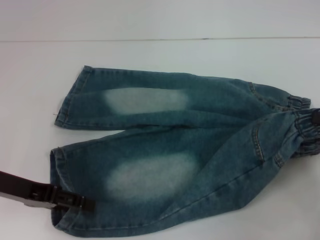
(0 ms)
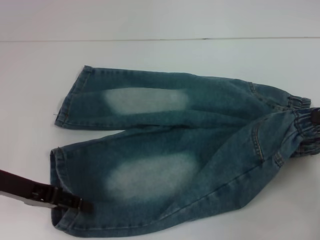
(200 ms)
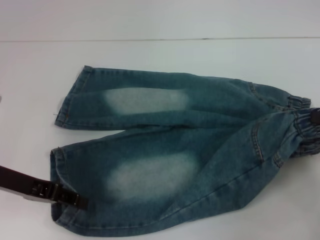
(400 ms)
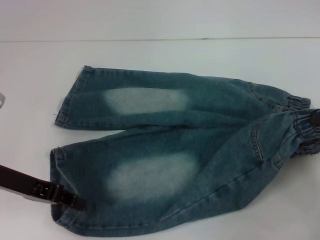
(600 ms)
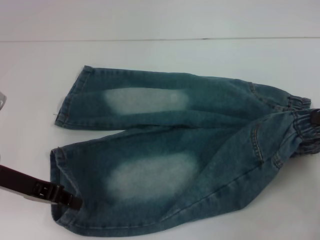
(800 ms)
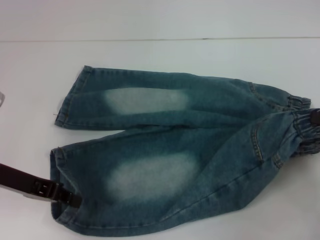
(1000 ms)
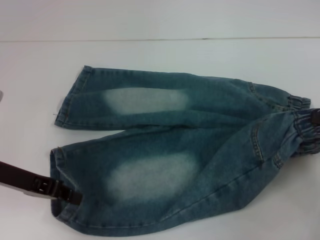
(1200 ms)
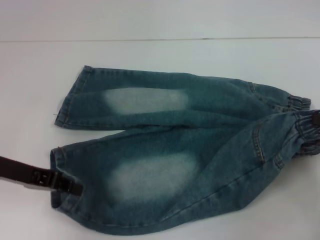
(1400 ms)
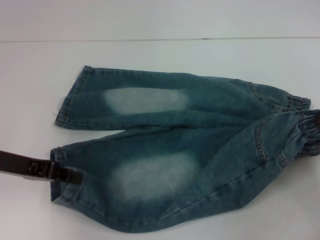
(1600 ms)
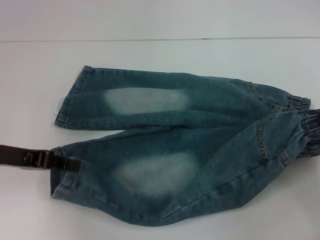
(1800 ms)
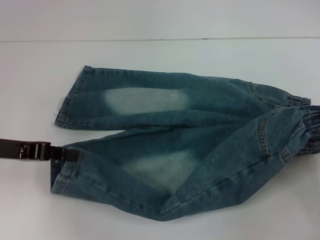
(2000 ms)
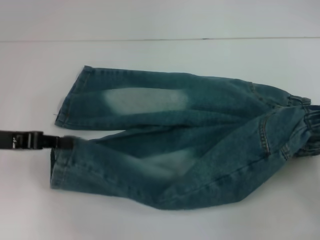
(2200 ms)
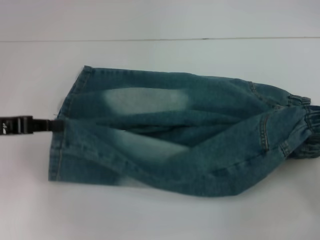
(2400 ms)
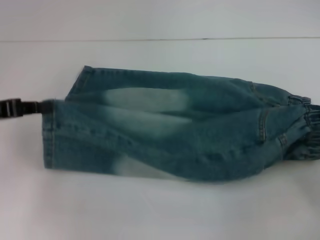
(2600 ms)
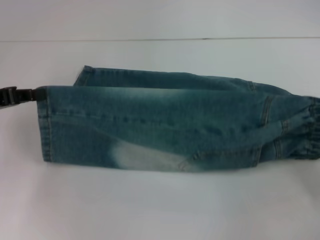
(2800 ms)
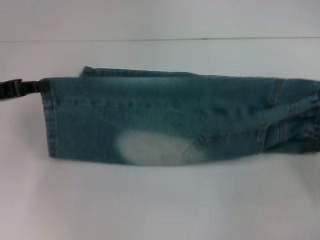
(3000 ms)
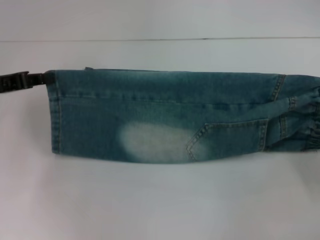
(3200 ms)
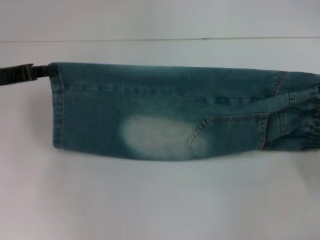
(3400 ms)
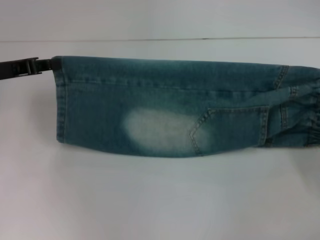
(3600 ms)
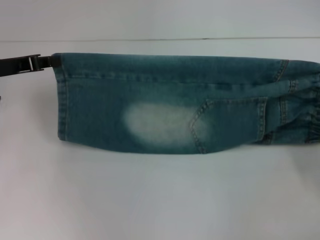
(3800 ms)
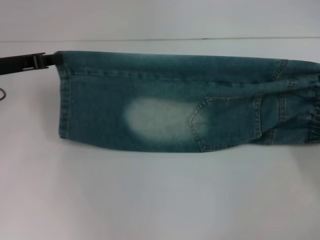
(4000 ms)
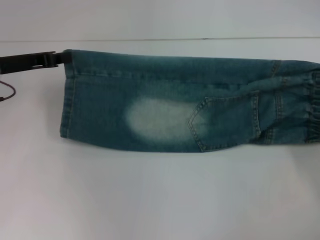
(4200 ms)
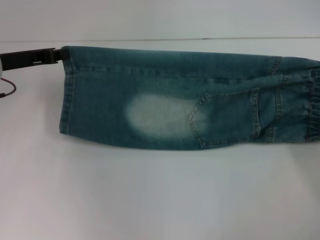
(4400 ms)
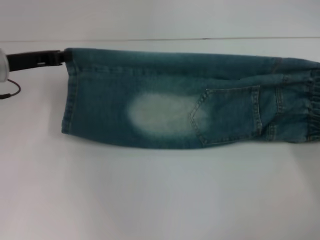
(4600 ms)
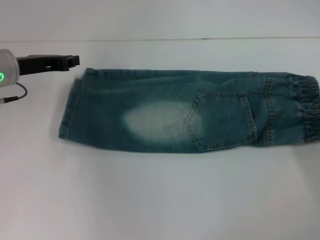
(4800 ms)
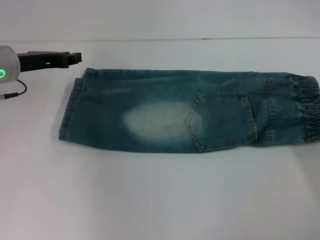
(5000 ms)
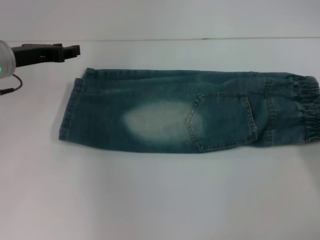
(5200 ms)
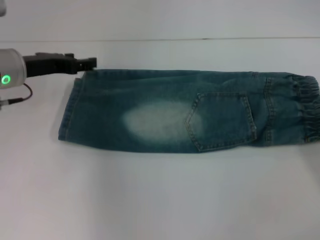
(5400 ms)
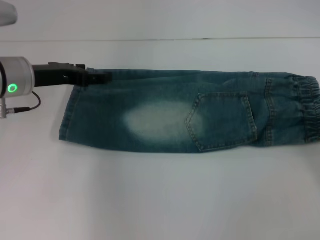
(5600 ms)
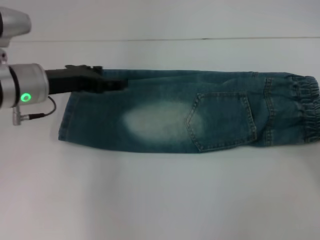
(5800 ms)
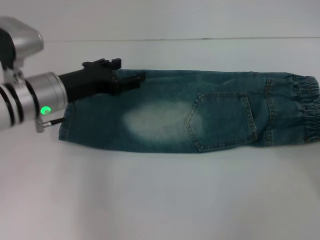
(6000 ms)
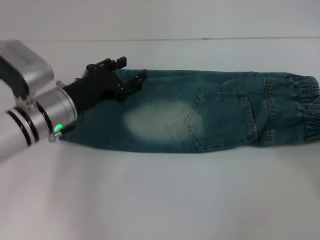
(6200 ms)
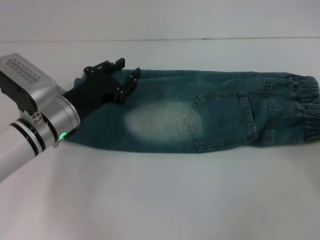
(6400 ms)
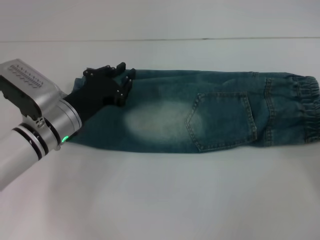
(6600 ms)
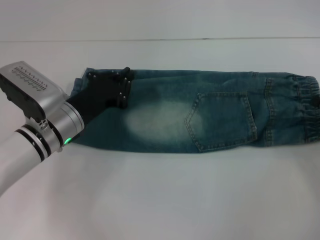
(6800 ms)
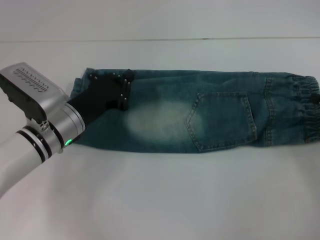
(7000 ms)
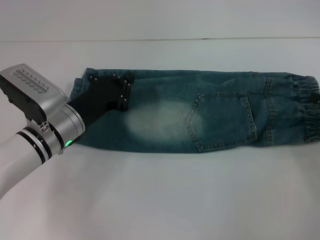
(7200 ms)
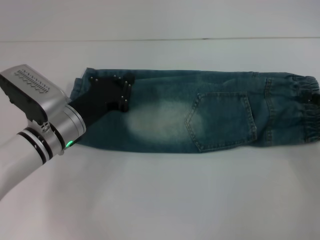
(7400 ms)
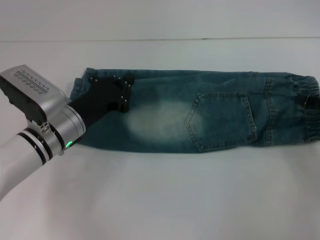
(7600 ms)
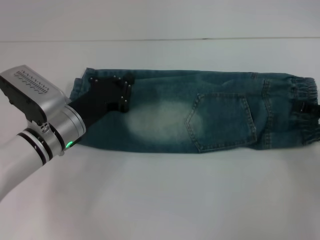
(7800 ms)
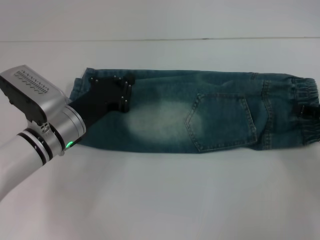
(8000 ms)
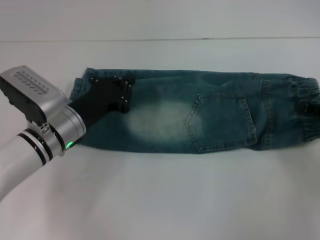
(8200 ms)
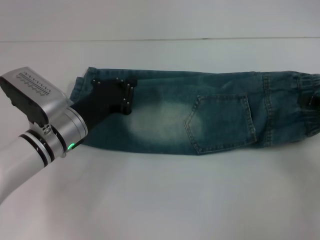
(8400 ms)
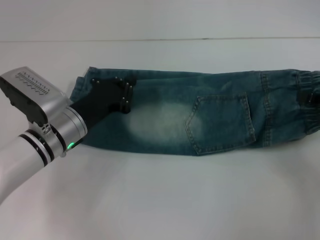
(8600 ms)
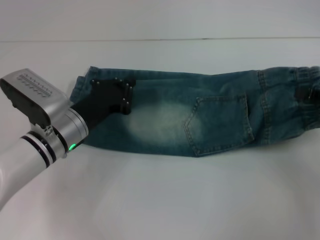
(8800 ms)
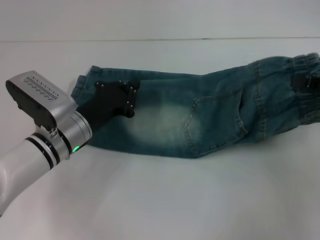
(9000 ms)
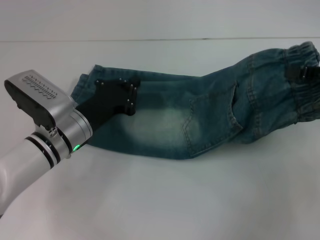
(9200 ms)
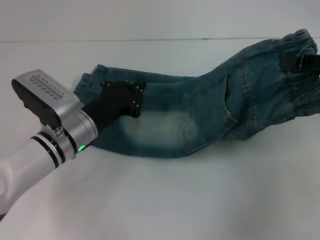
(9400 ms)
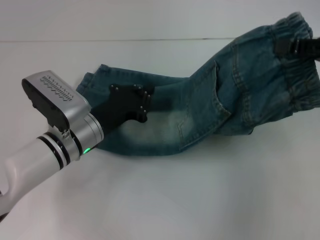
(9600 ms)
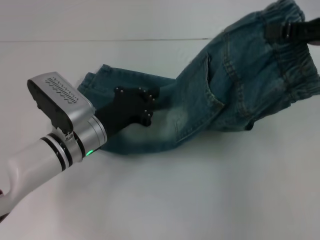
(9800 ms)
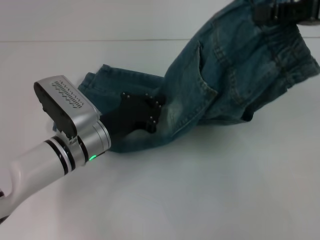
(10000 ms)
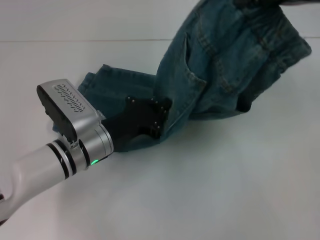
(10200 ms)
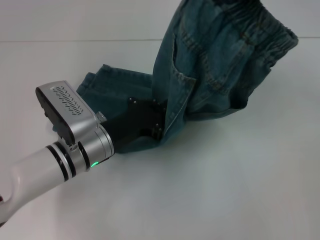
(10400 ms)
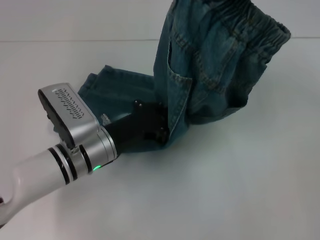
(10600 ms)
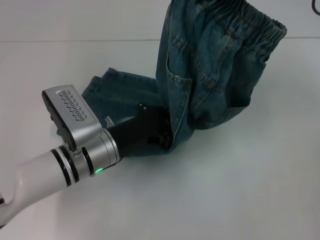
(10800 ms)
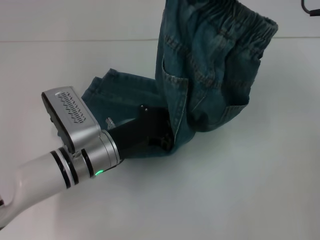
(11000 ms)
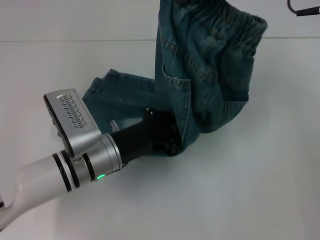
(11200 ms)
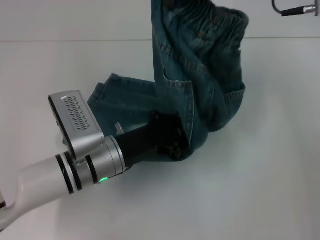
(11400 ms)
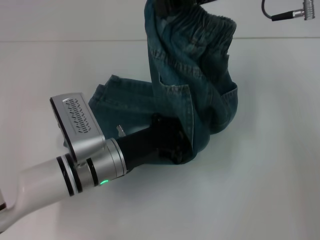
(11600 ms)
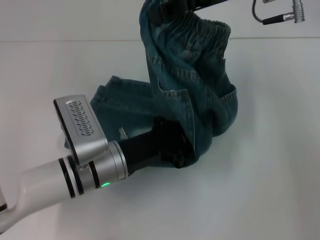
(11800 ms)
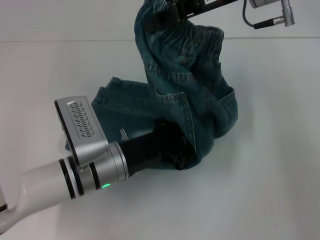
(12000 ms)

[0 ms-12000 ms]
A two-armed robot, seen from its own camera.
Step, 0 ms to 5200 ms: Fold upward with your right hand.
Step, 5400 ms to 7800 ms: Grab the waistband with your right hand.
0 ms to 1600 ms: The left gripper closes.
1600 ms to 3000 ms: The left gripper shifts by about 5 cm.
3000 ms to 4400 ms: The right gripper shifts by roughly 5 cm. The left gripper travels forward by roughly 5 cm.
4400 ms to 6000 ms: The left gripper heads to the right, covering some 10 cm, and opens its fingers. The right gripper shifts about 5 cm backward, and opens up.
6000 ms to 7600 ms: The right gripper heads forward, covering approximately 5 cm, while the left gripper shifts some 5 cm downward, and closes.
7600 ms to 9000 ms: The right gripper moves upward, about 5 cm, and closes up.
9000 ms to 10400 ms: The right gripper is displaced upward, to the left and forward by about 20 cm.
10400 ms to 12000 ms: The right gripper shifts some 10 cm to the left.

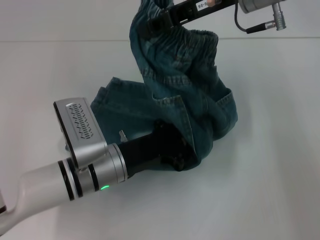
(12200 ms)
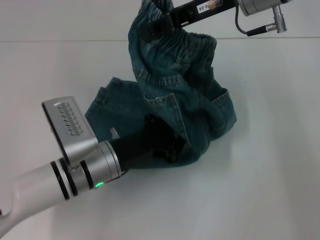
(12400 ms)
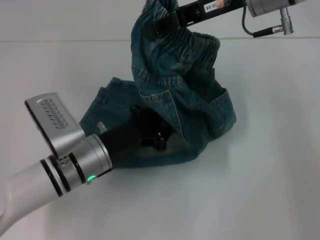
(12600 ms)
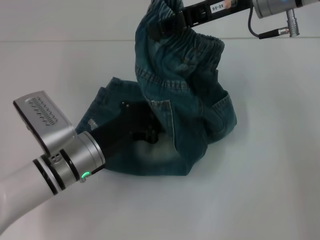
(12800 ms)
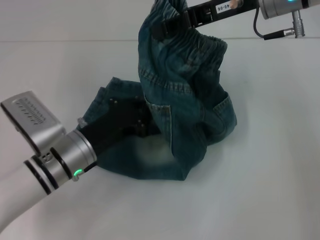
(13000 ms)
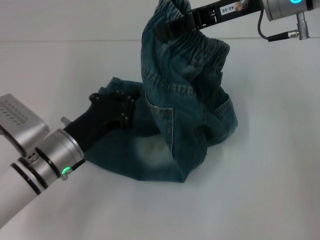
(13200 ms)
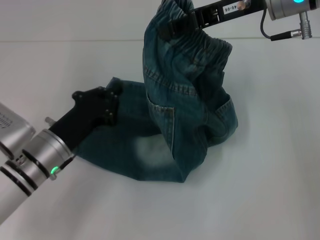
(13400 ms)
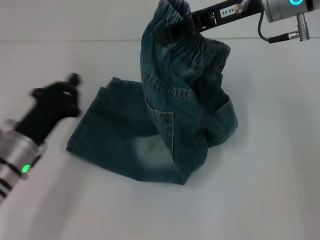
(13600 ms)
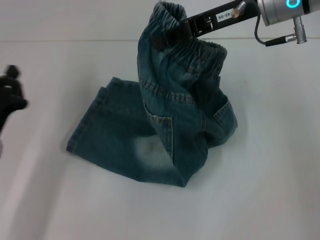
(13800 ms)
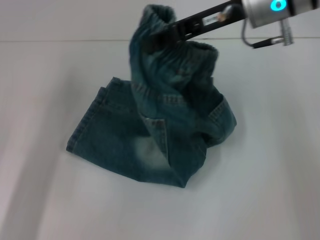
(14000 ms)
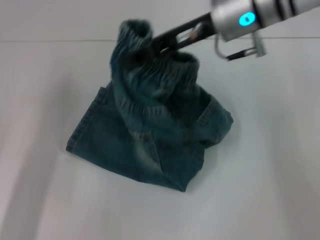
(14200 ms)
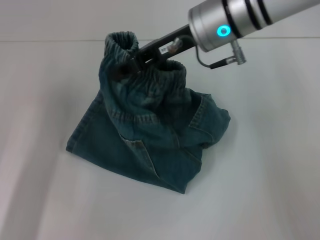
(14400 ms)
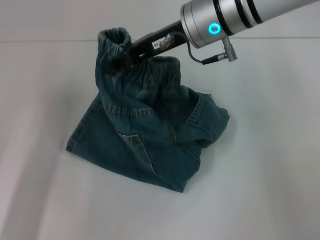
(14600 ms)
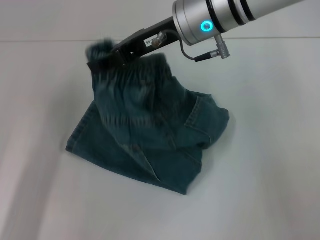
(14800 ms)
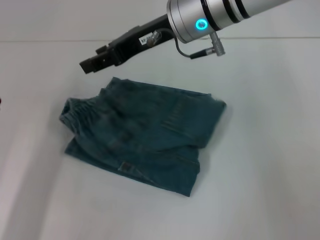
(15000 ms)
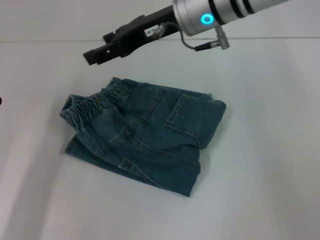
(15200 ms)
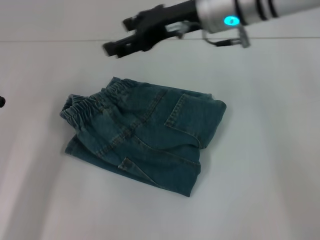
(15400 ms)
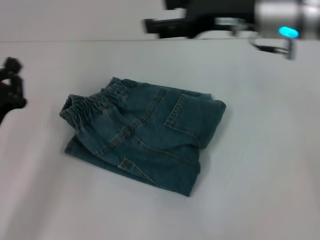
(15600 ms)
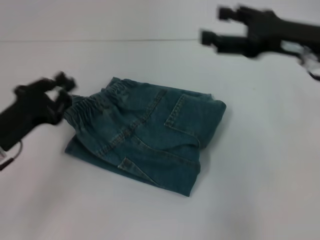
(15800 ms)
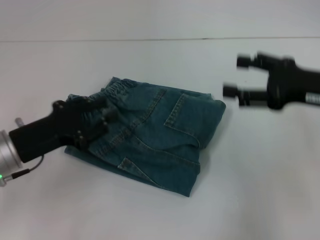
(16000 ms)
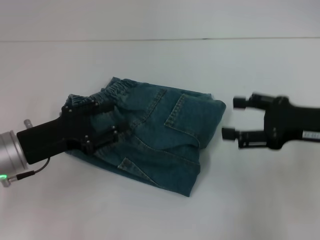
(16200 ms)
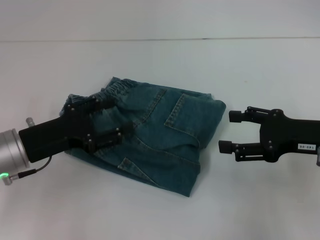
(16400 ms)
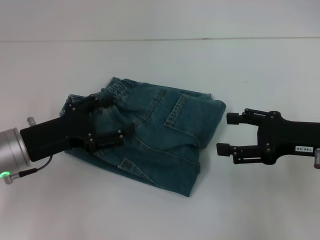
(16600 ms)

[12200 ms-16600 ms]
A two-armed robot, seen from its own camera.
Step, 13000 ms to 14800 ms: Fold to the left with your right hand.
12200 ms to 13600 ms: The left gripper travels to the left by approximately 10 cm.
13600 ms to 15200 ms: The right gripper is displaced to the left by about 10 cm, and opens. The left gripper is displaced to the left by roughly 5 cm.
15200 ms to 16600 ms: The left gripper moves approximately 5 cm, and opens its fingers. The right gripper travels to the right, backward and downward by about 25 cm.

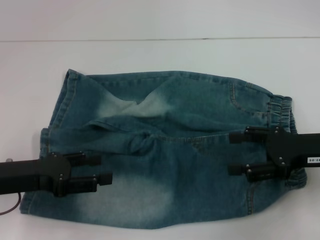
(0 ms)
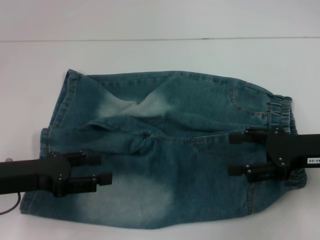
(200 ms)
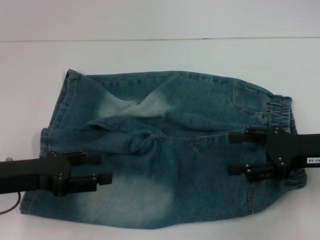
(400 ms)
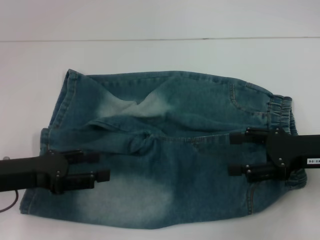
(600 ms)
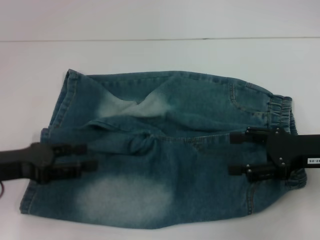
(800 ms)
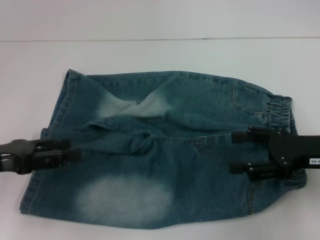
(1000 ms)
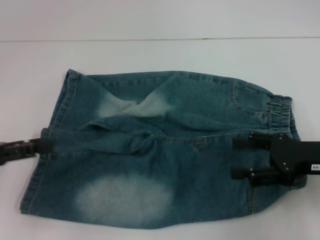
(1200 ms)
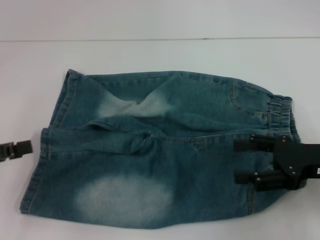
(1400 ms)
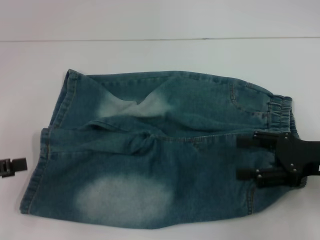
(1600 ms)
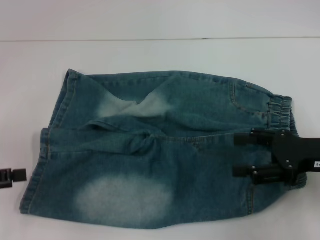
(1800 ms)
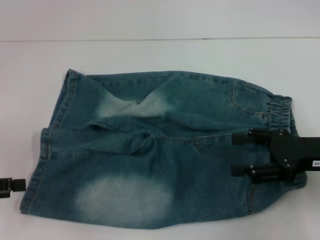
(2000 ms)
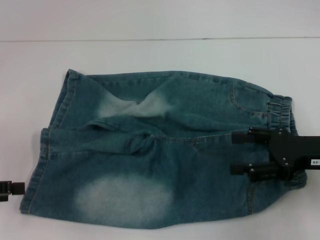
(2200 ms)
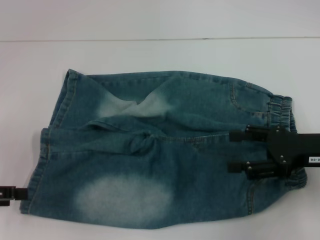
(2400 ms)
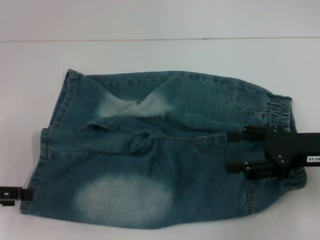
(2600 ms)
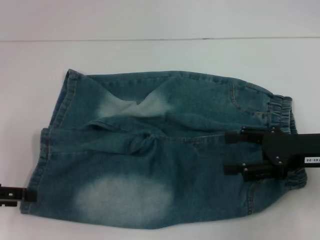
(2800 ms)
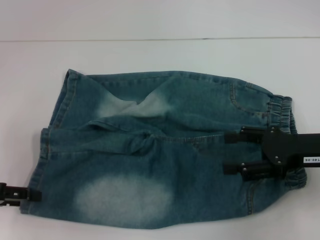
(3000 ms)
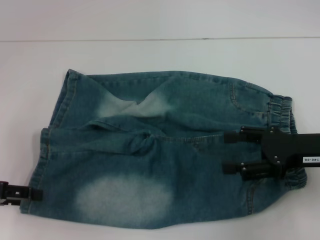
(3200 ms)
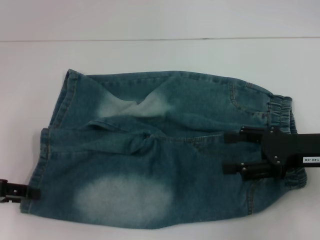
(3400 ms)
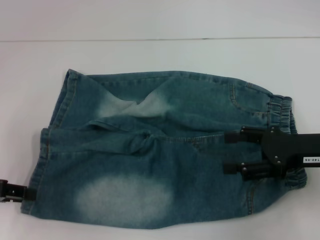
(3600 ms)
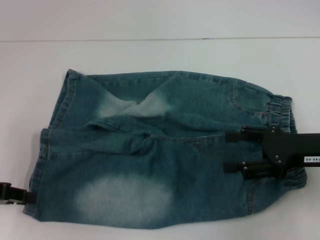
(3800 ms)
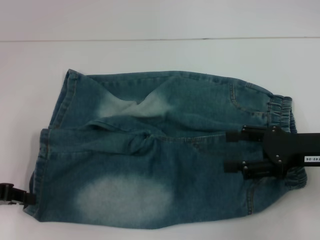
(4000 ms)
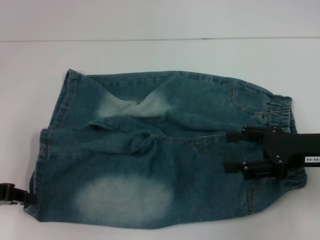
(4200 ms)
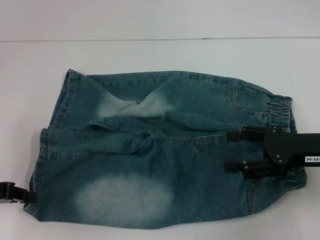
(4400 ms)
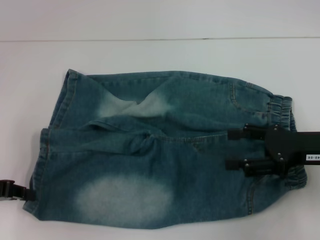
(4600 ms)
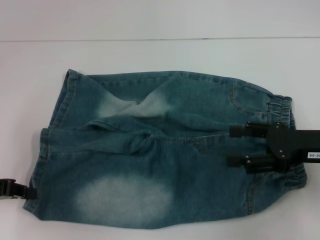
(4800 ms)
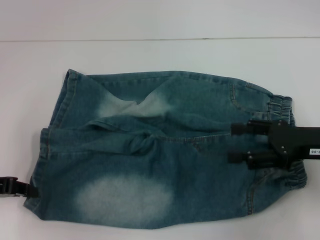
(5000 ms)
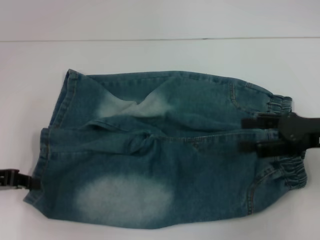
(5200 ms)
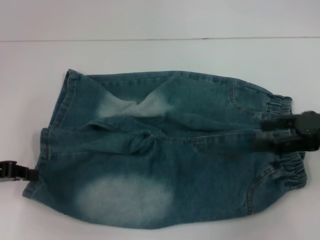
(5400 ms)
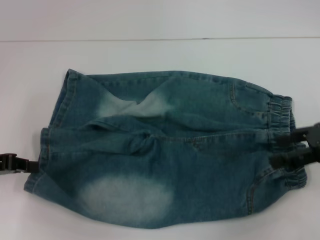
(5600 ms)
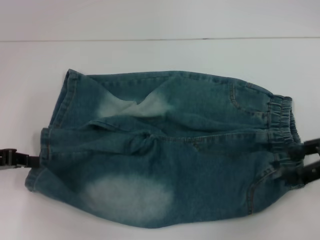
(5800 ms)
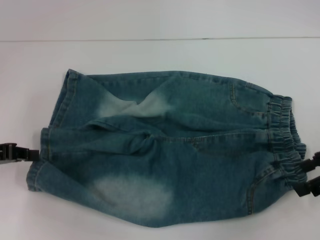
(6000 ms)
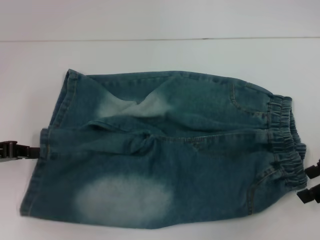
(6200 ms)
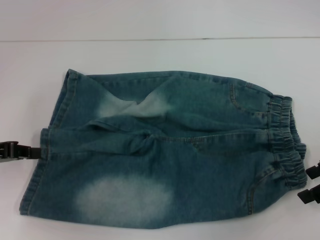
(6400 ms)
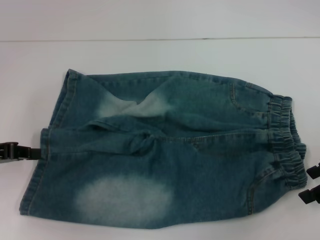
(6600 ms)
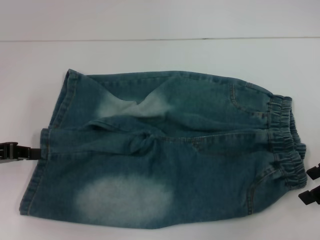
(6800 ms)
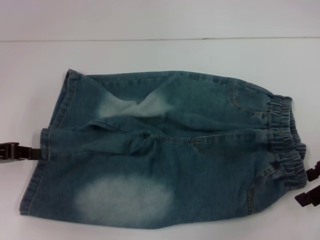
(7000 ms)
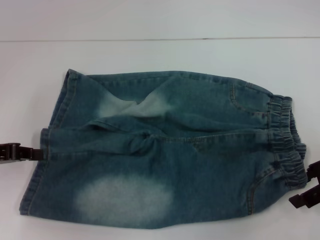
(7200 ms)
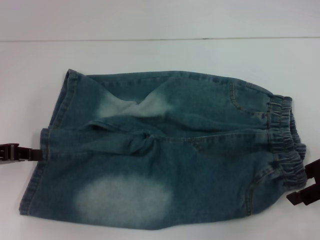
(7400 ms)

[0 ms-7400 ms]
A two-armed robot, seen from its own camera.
0 ms to 1400 ms: The left gripper heads to the left, covering roughly 10 cm.
3000 ms to 4400 ms: The left gripper closes up.
4400 ms to 6000 ms: The right gripper travels to the right by about 5 cm.
6000 ms to 7400 ms: The grippers stay close to where they were, moving slightly.
